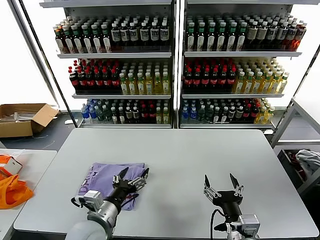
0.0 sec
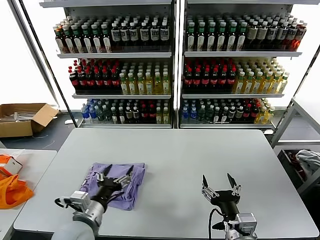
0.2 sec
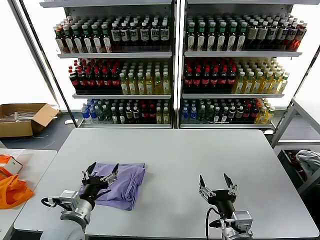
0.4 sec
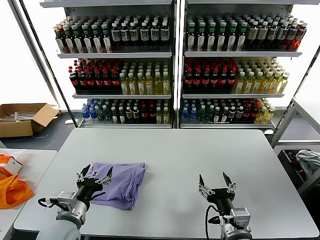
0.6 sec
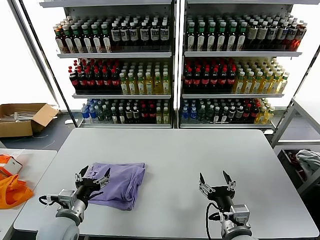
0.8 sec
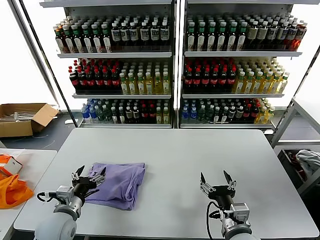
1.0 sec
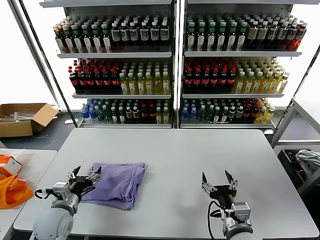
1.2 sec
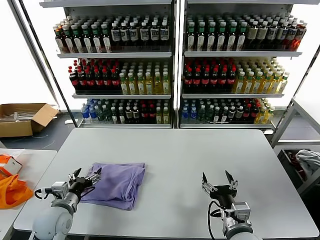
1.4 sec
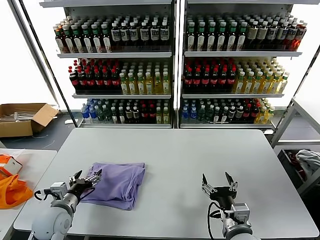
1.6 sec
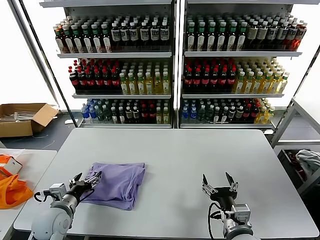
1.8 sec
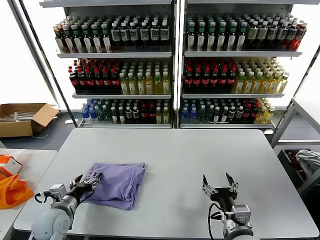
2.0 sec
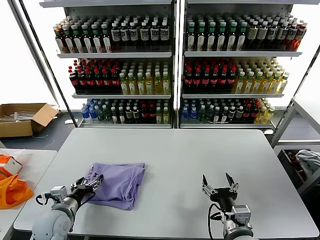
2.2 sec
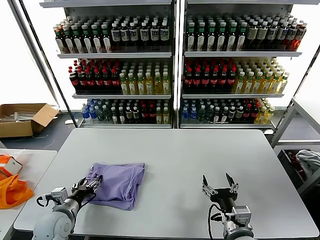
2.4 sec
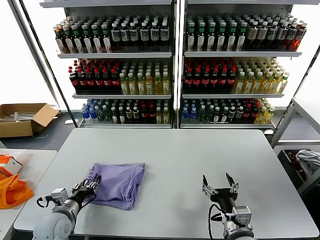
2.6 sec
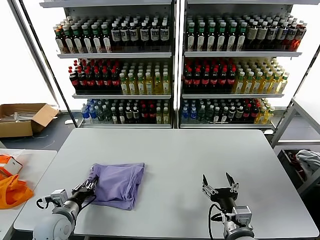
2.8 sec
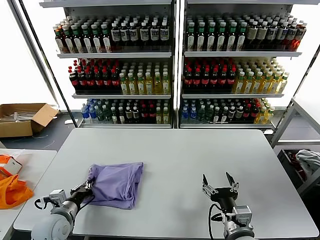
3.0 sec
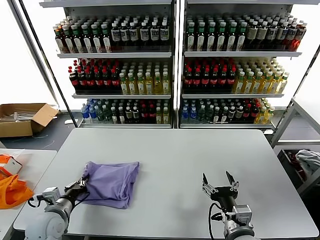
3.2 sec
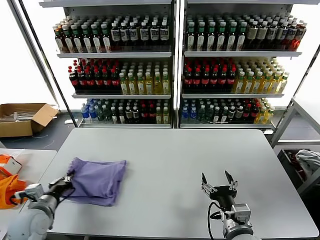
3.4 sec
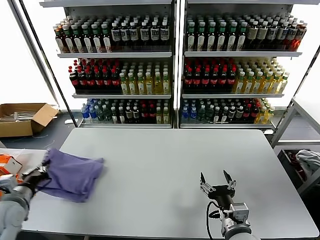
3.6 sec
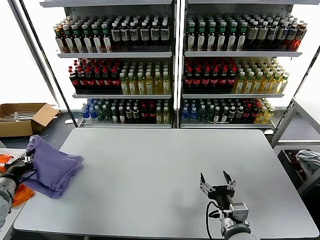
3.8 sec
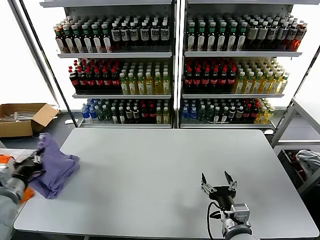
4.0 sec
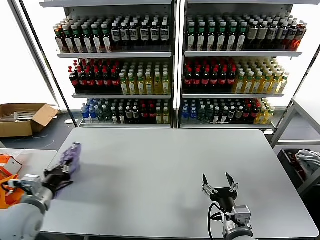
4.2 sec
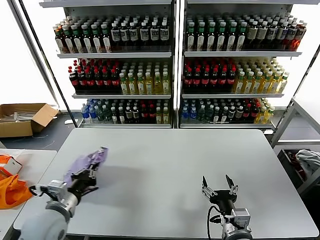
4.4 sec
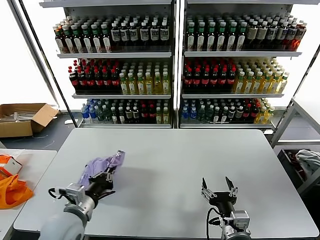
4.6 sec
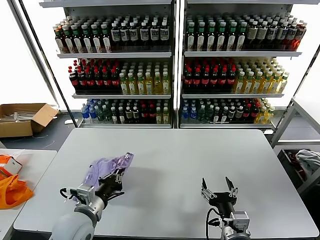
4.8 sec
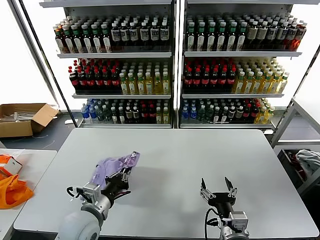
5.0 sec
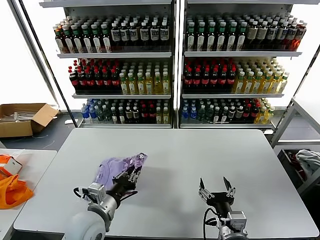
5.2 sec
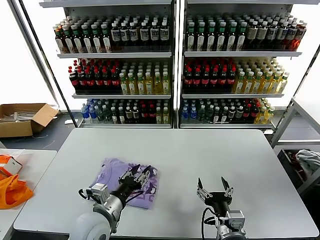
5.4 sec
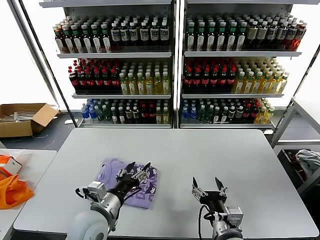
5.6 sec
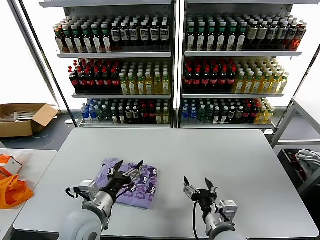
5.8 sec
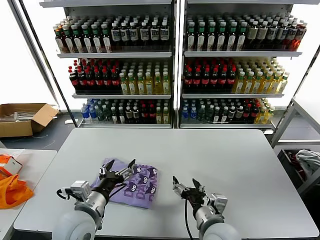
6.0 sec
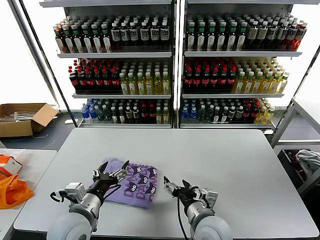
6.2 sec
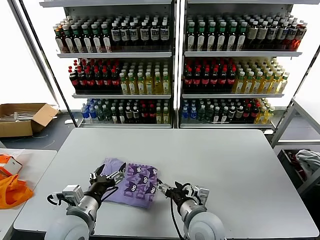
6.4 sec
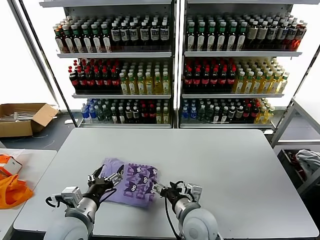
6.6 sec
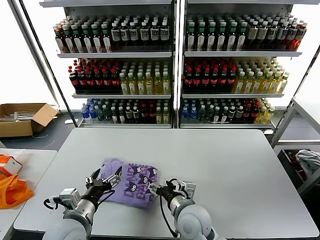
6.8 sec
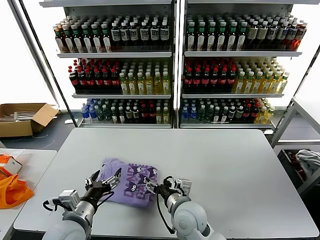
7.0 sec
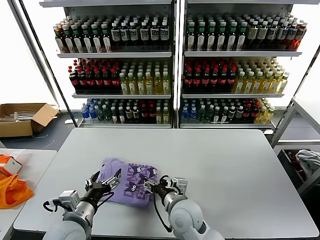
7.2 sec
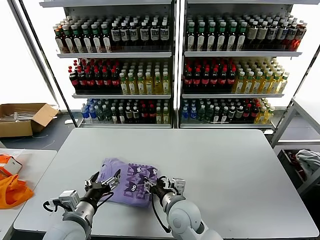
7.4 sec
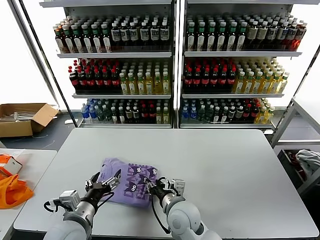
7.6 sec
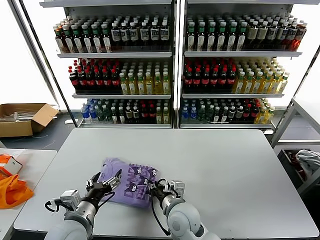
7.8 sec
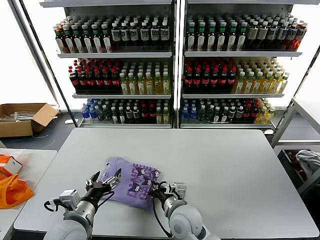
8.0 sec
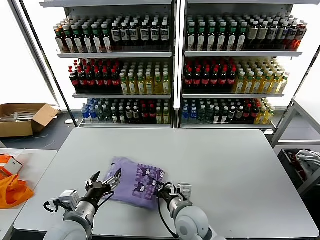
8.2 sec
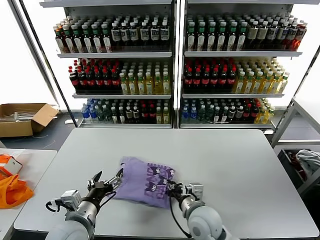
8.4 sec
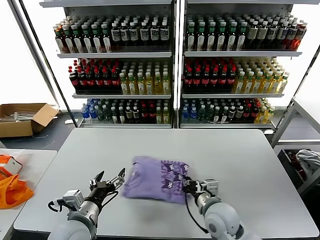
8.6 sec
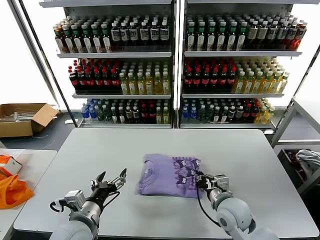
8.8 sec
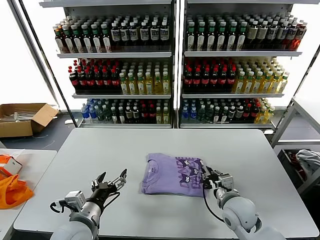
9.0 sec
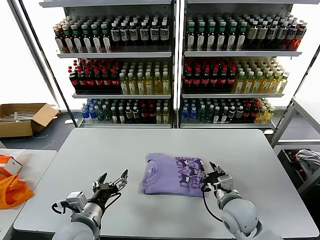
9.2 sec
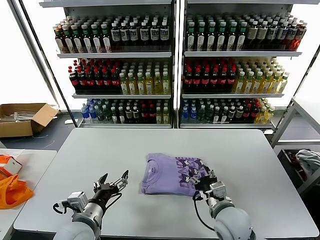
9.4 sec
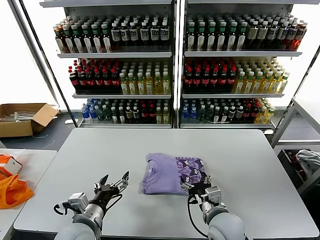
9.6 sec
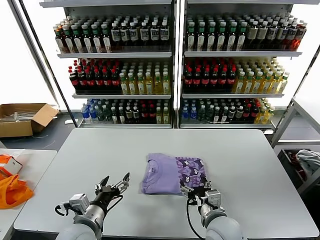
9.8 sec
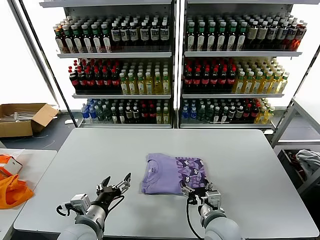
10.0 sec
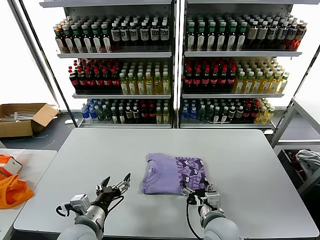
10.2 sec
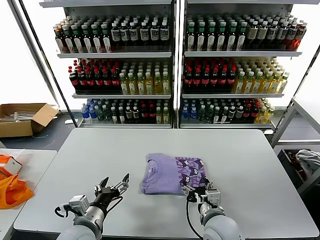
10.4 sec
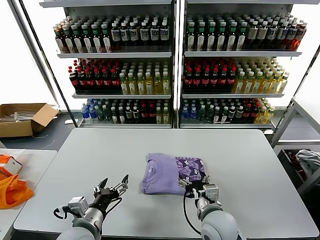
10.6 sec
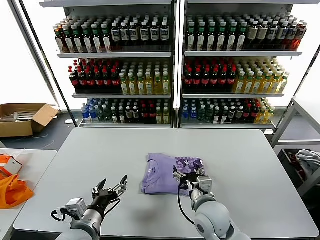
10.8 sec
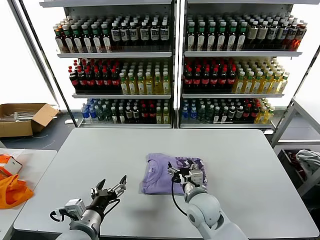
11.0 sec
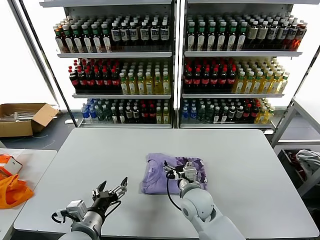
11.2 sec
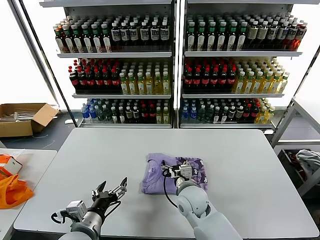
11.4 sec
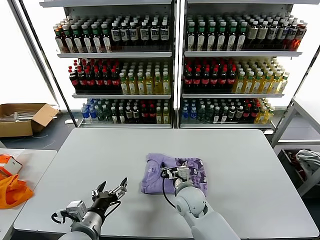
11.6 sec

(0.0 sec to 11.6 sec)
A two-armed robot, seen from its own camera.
Task of the whole recording: fold and organize the clothes.
Step, 0.0 sec - 5.2 sec: Flip the folded clothes over with left gripper.
0.0 sec - 1.4 sec: The right gripper shifts by some 5 cm; the left gripper shifts some 15 cm to the left.
1.4 sec - 2.8 sec: The left gripper closes up.
2.8 sec - 4.4 sec: The left gripper heads upward, covering roughly 10 cm, moves about 15 cm to the left and comes back, and closes up.
4.4 sec - 5.8 sec: The left gripper goes roughly 10 cm to the right, and opens its fingers.
5.8 sec - 7.2 sec: The right gripper moves to the left and forward, approximately 15 cm.
7.2 sec - 8.8 sec: The right gripper moves to the right, about 15 cm, and closes its fingers.
8.8 sec - 10.2 sec: The right gripper goes roughly 5 cm backward, and opens its fingers.
10.2 sec - 11.6 sec: The right gripper heads forward and to the left, covering about 15 cm.

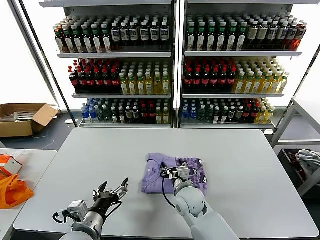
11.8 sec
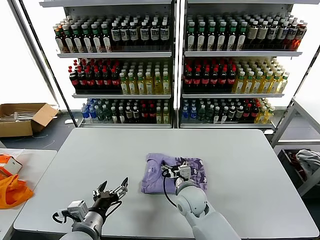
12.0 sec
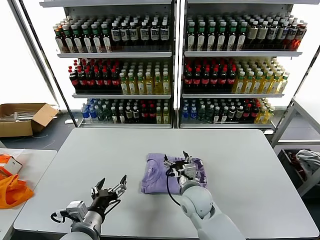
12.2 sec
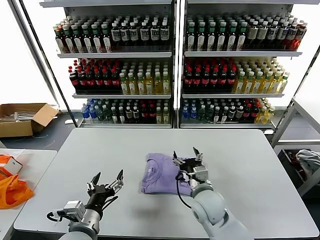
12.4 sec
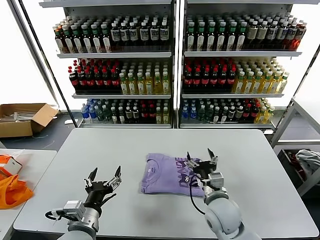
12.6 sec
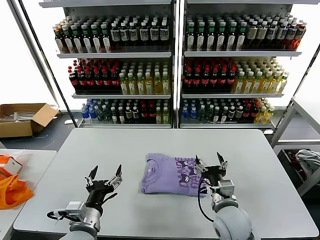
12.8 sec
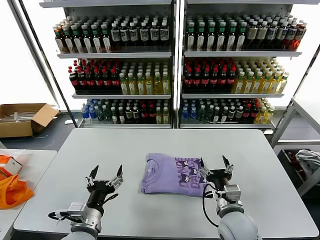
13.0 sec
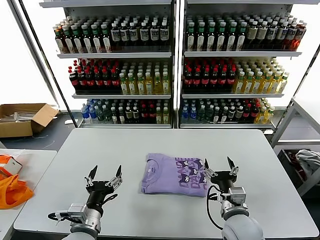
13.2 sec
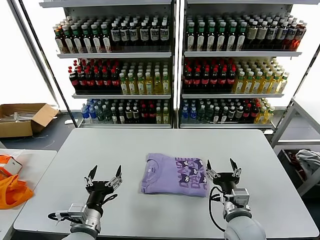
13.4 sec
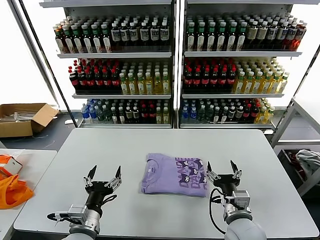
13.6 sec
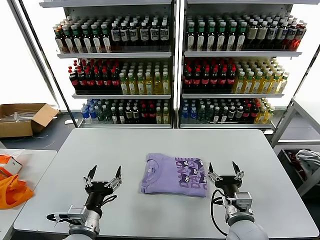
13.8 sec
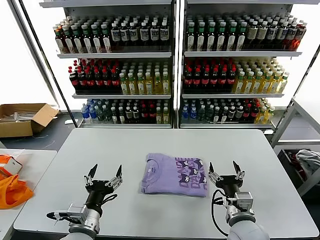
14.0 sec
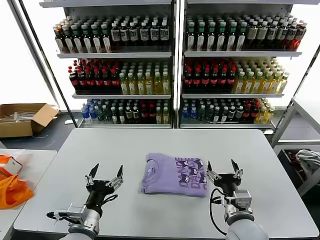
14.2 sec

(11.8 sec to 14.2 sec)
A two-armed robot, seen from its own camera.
Task of the whole recording: fold and organize the clothes.
11.8 sec - 13.0 sec: The right gripper travels to the right, backward and upward by some 15 cm.
13.0 sec - 14.2 sec: The grippers move only a little.
